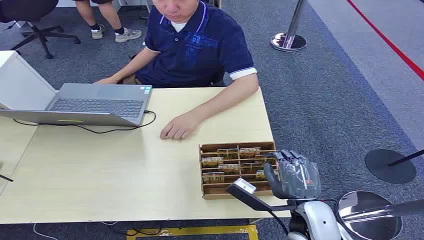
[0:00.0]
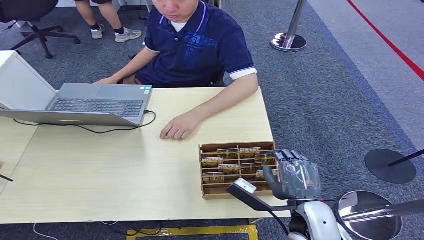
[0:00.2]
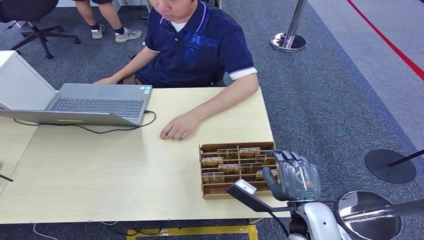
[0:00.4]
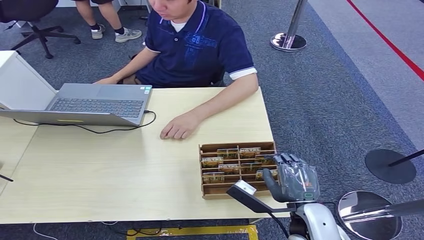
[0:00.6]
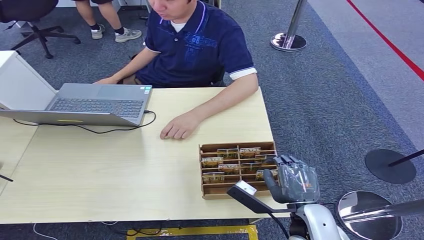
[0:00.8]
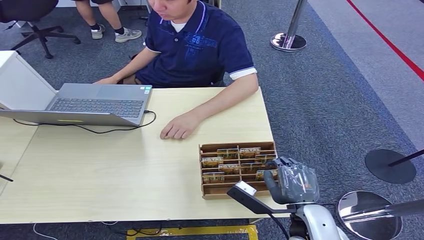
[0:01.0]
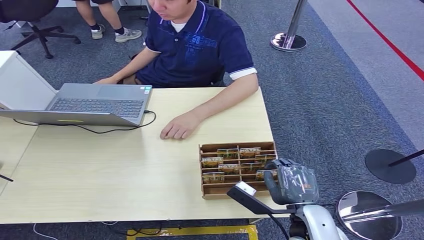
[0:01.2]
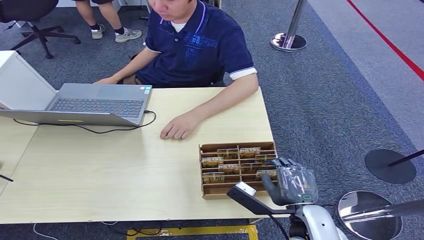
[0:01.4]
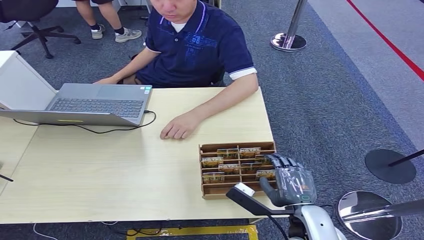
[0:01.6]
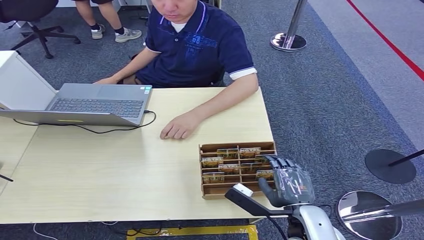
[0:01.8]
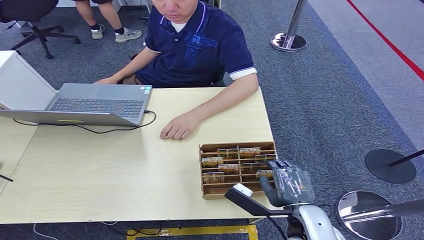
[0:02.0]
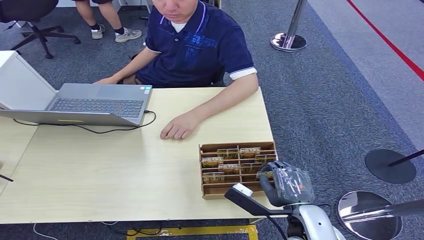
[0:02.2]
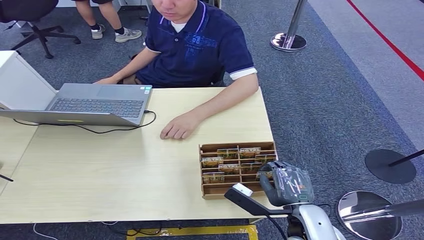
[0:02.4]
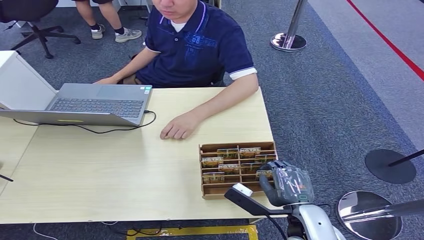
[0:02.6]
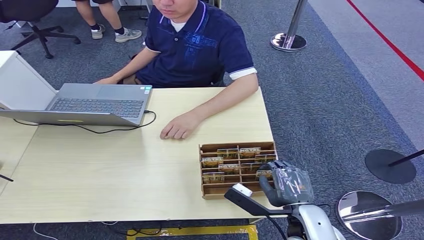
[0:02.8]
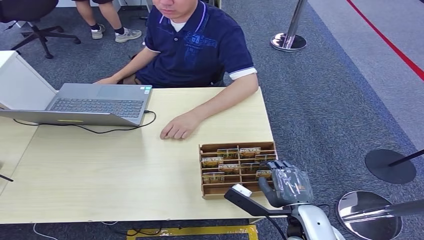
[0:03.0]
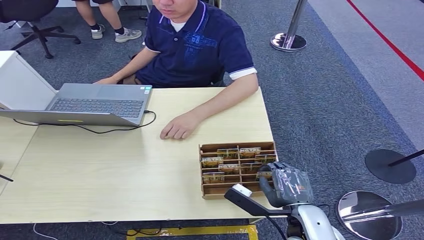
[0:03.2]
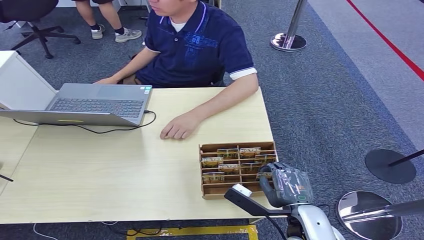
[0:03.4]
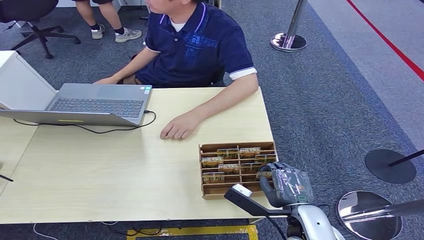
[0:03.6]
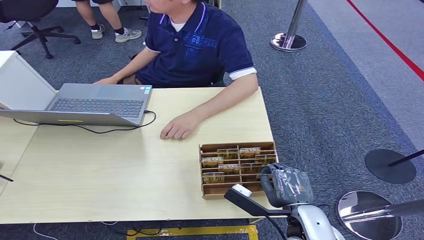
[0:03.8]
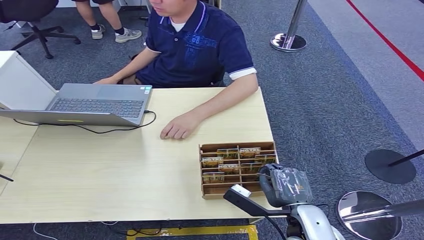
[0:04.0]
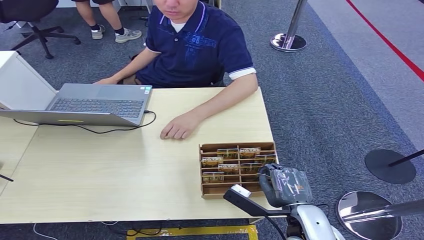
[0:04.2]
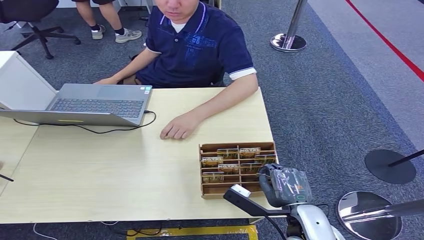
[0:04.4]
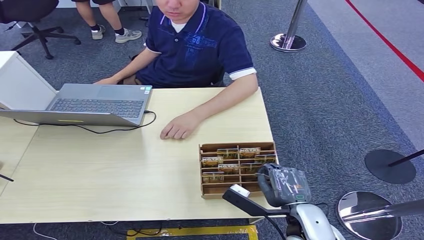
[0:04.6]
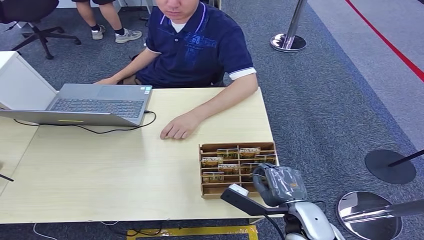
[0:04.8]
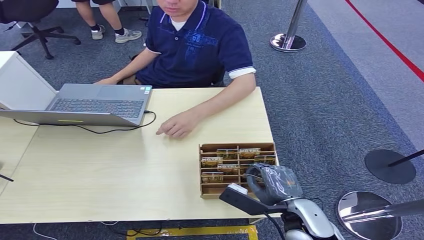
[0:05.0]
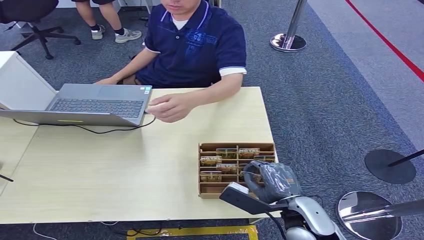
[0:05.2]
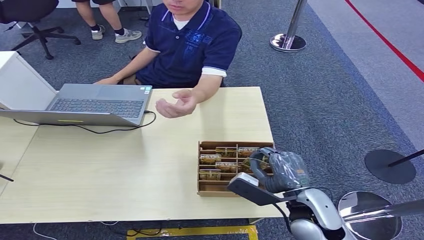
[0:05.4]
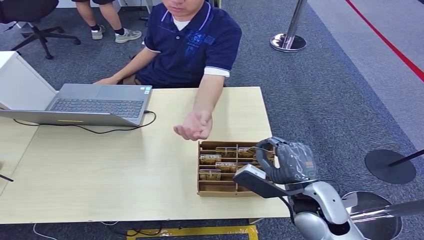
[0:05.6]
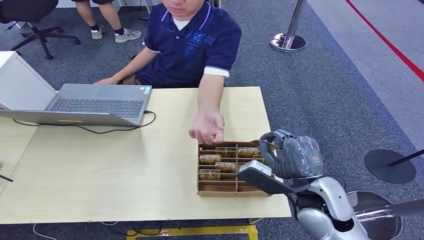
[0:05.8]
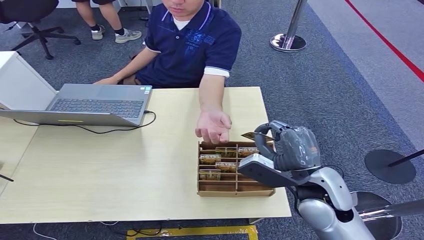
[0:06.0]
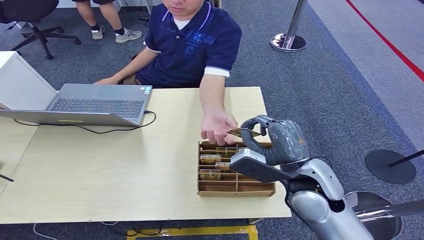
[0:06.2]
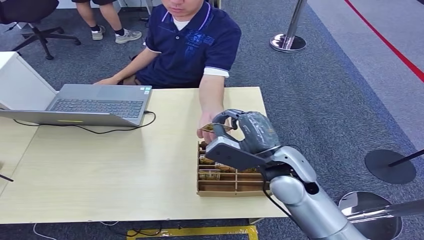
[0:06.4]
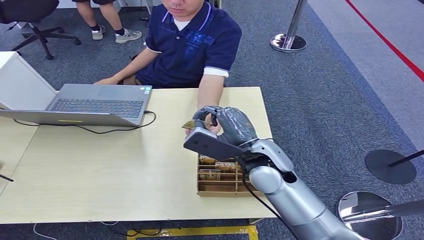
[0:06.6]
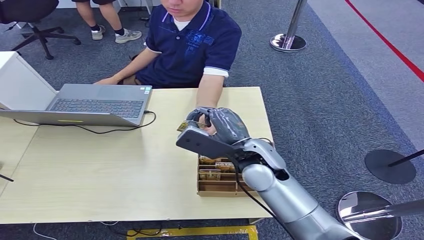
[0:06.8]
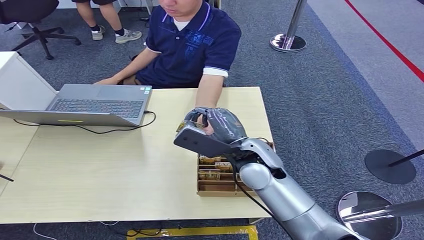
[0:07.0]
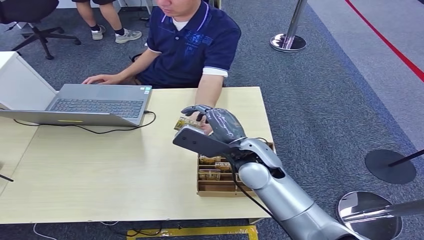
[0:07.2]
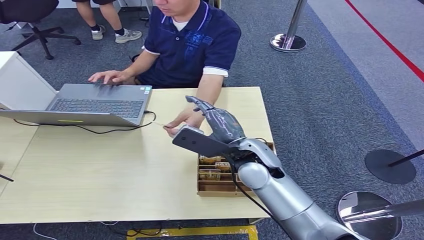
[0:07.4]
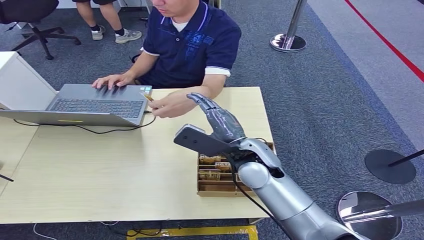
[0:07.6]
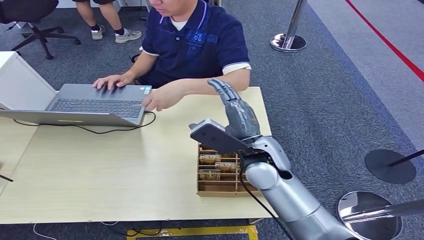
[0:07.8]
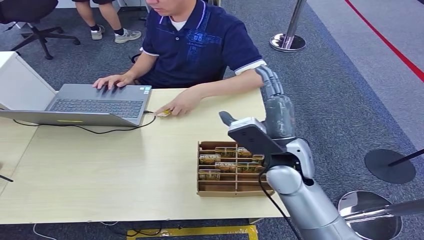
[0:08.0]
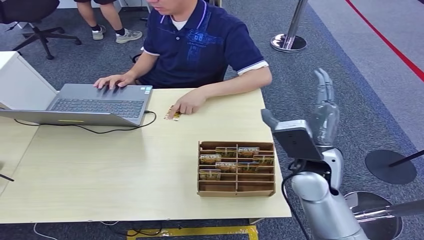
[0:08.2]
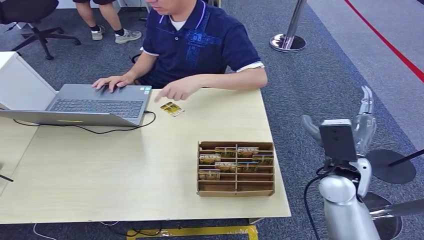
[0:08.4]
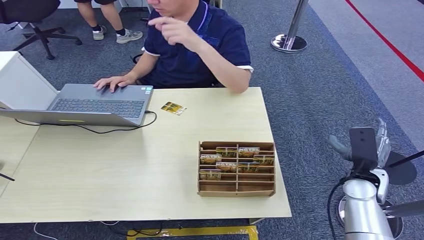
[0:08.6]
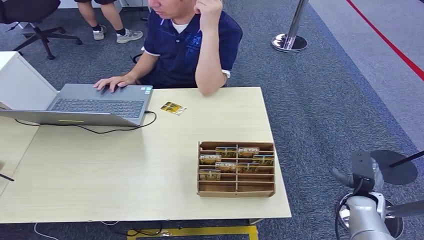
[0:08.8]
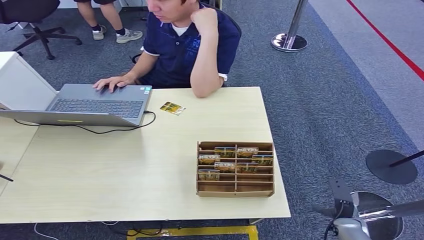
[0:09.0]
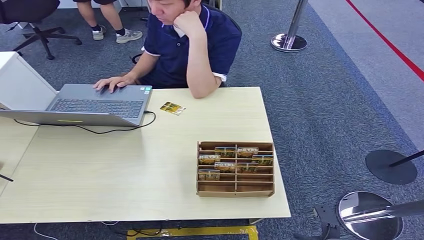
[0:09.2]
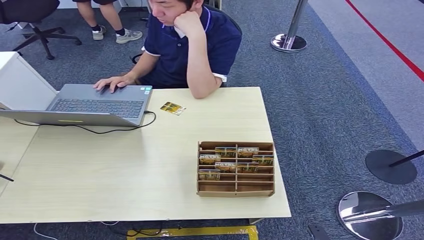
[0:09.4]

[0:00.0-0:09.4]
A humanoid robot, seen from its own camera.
Step, 0:00.0 to 0:05.6: Pick up the key card from the card box.
Step, 0:05.8 to 0:09.4: Hand the key card to the target.
0:01.6 to 0:03.2: Both hands stay put.
0:03.2 to 0:04.8: The hands stay close to where they were, moving slightly.
0:04.8 to 0:06.2: The right hand goes some 15 cm upward and forward.
0:06.2 to 0:07.8: The right hand travels to the left and forward by about 10 cm.
0:07.8 to 0:09.4: The right hand moves downward, backward and to the right, roughly 40 cm.
